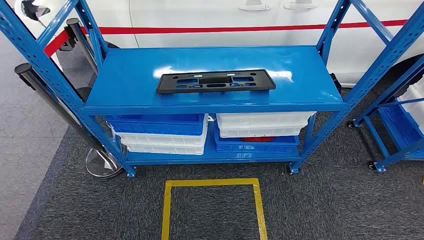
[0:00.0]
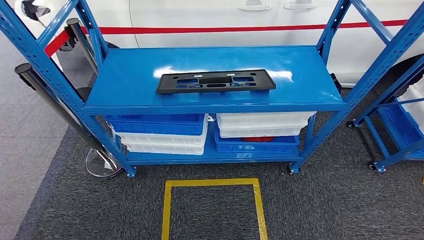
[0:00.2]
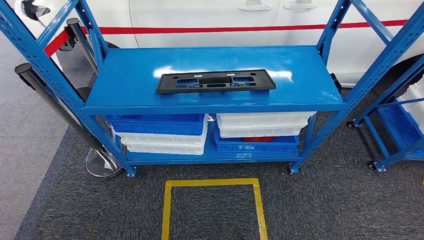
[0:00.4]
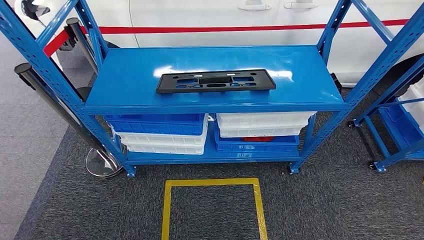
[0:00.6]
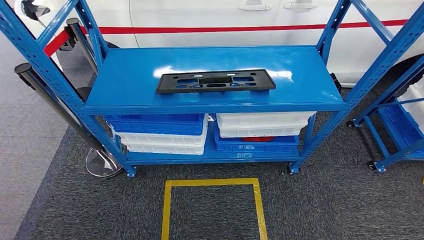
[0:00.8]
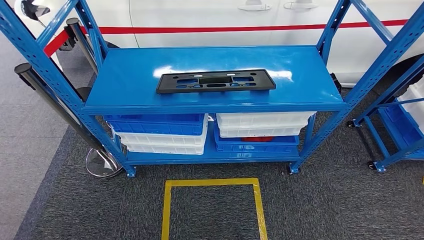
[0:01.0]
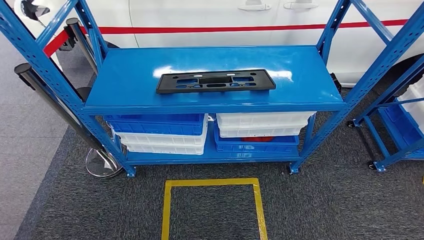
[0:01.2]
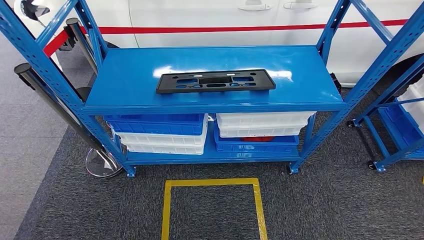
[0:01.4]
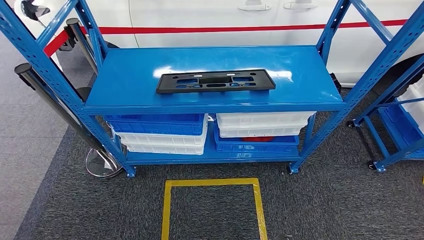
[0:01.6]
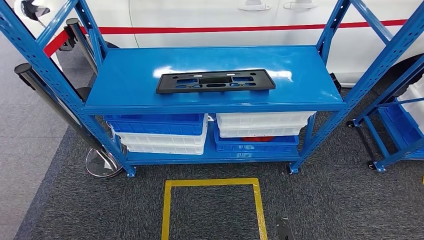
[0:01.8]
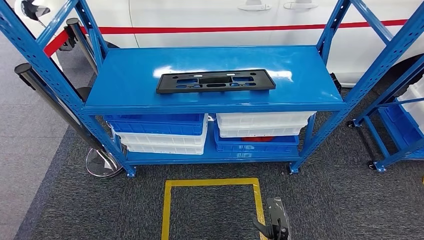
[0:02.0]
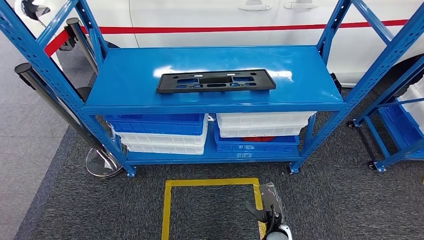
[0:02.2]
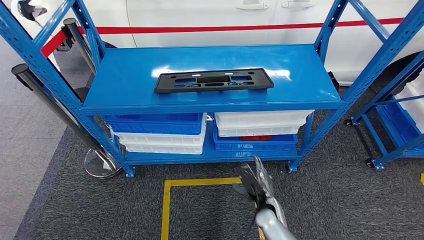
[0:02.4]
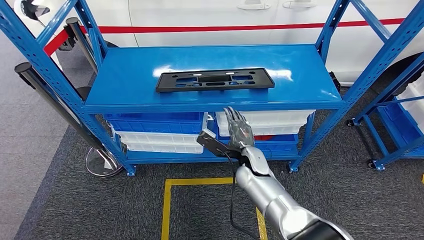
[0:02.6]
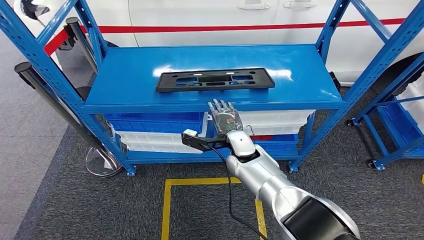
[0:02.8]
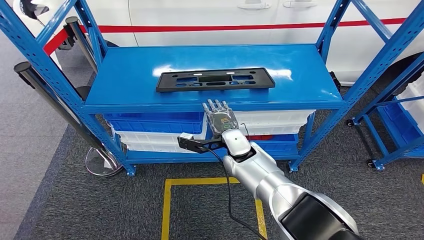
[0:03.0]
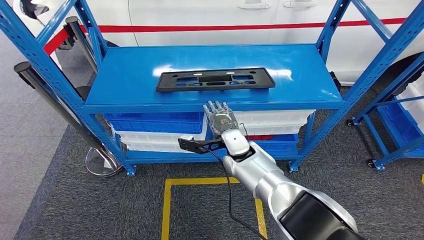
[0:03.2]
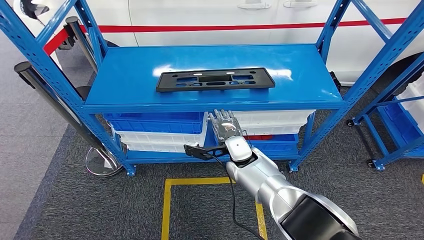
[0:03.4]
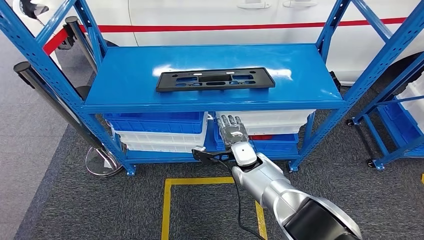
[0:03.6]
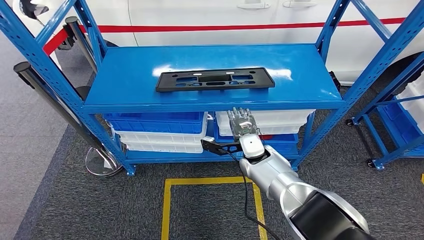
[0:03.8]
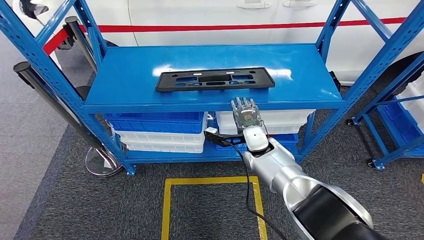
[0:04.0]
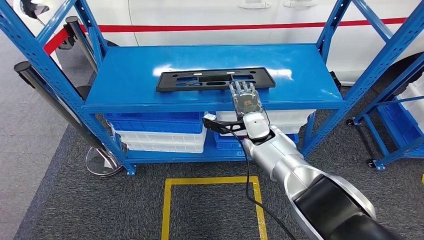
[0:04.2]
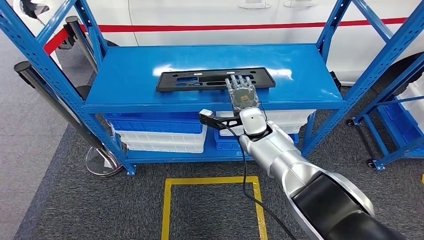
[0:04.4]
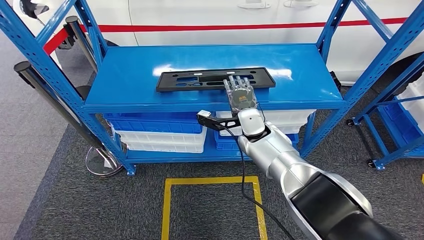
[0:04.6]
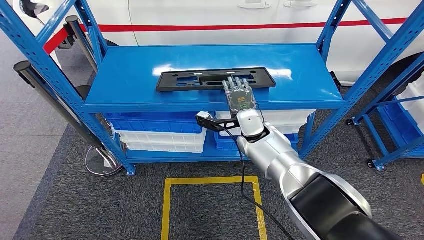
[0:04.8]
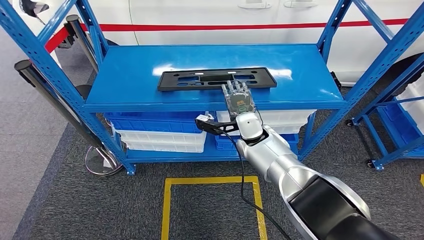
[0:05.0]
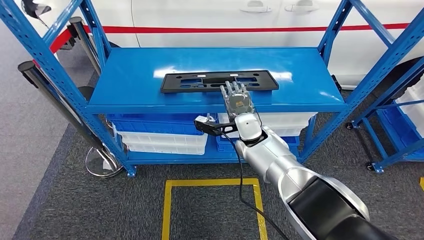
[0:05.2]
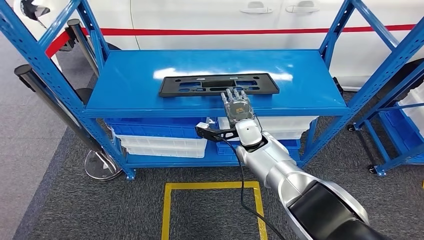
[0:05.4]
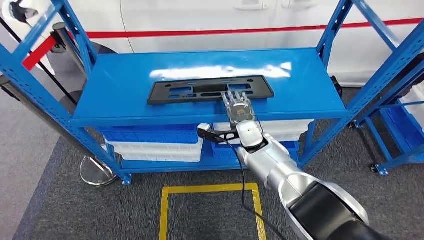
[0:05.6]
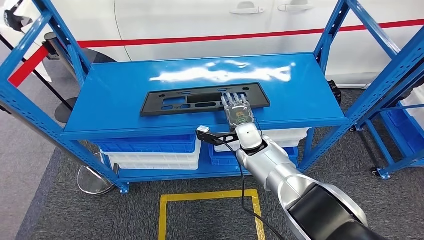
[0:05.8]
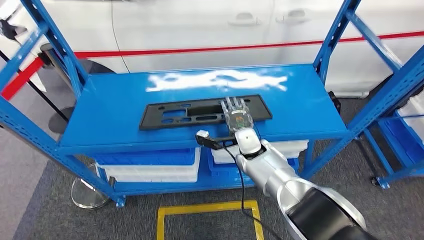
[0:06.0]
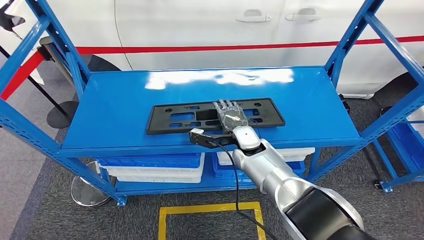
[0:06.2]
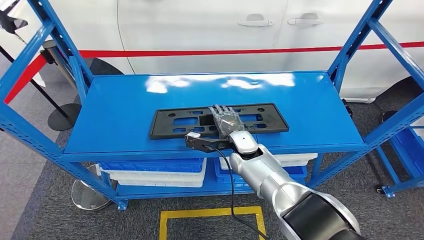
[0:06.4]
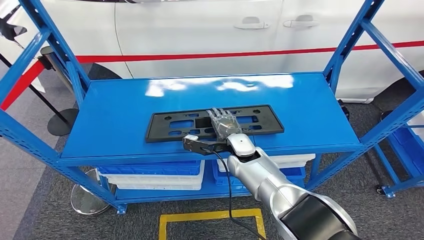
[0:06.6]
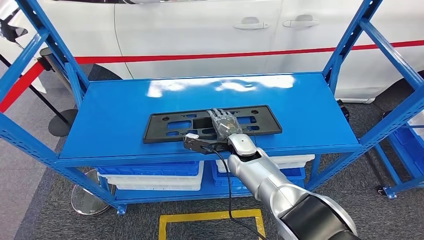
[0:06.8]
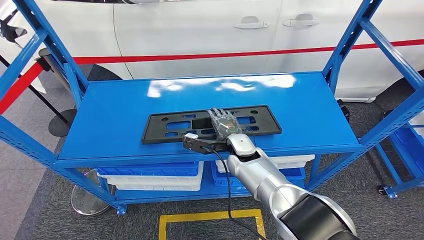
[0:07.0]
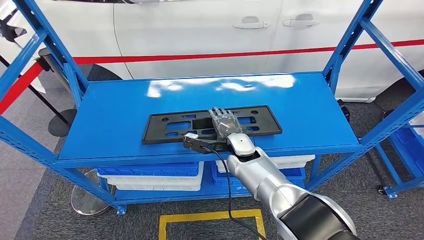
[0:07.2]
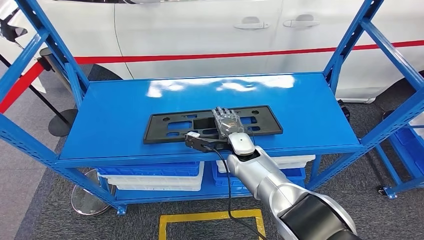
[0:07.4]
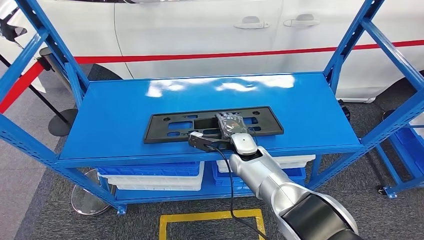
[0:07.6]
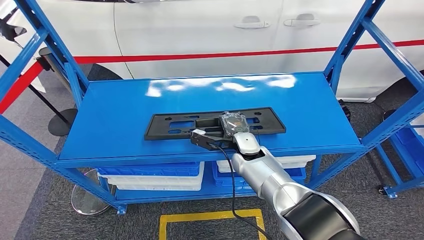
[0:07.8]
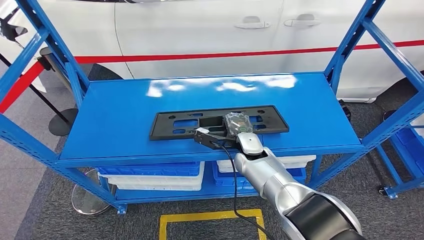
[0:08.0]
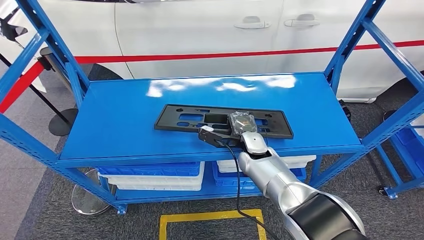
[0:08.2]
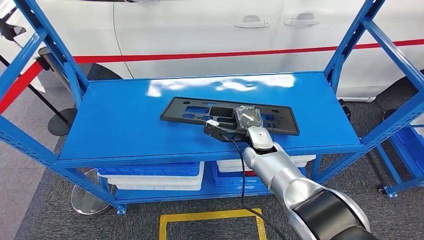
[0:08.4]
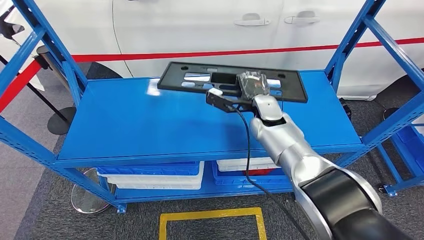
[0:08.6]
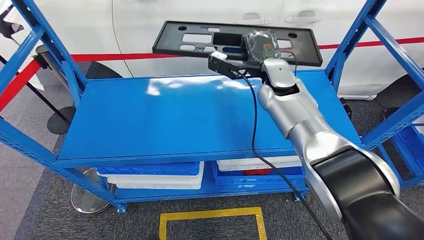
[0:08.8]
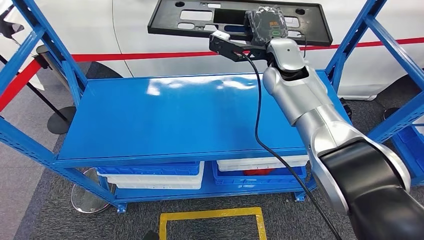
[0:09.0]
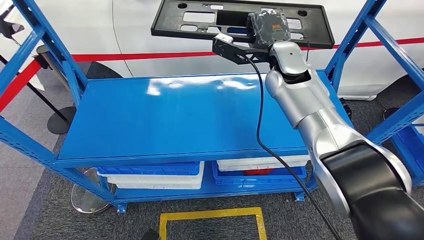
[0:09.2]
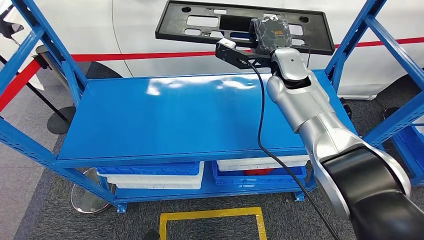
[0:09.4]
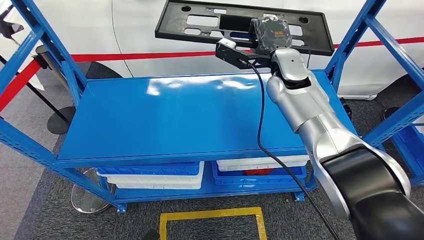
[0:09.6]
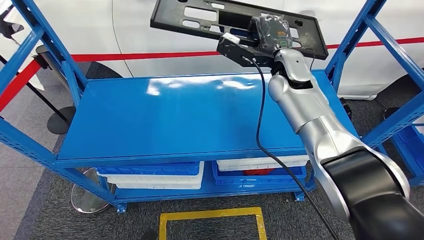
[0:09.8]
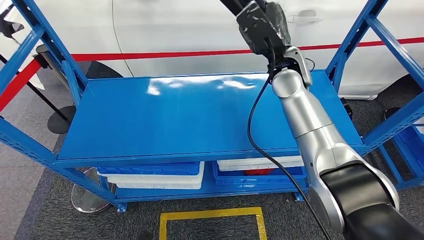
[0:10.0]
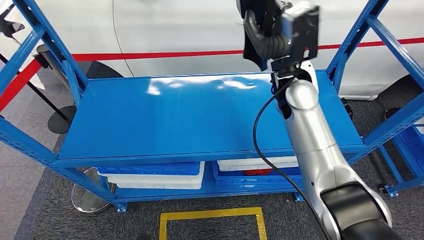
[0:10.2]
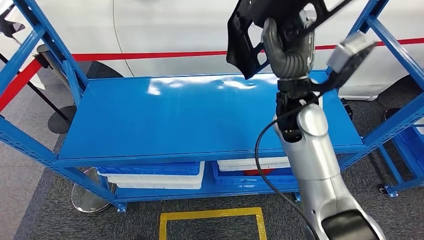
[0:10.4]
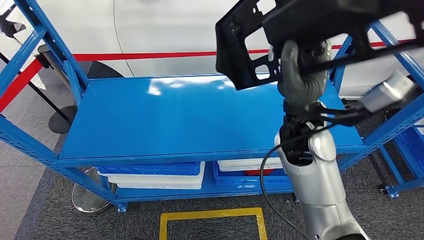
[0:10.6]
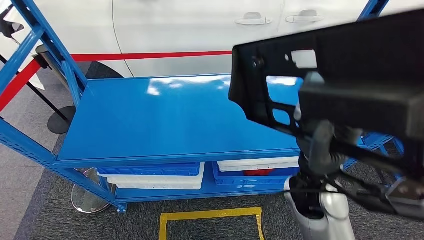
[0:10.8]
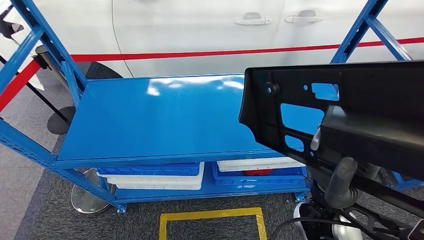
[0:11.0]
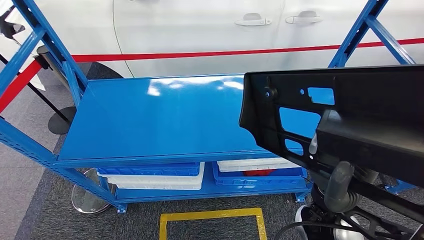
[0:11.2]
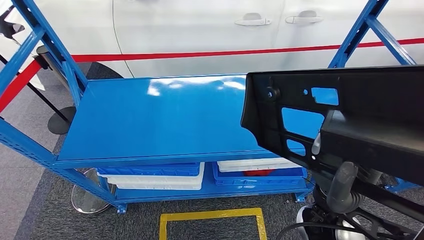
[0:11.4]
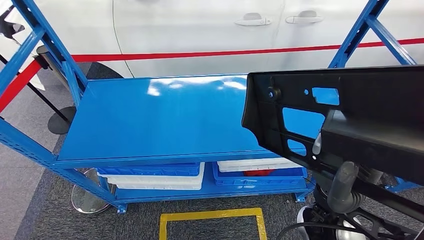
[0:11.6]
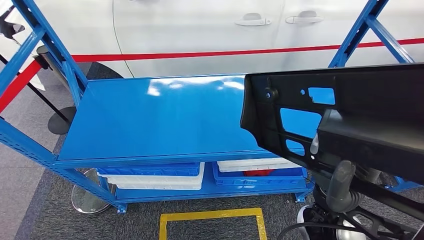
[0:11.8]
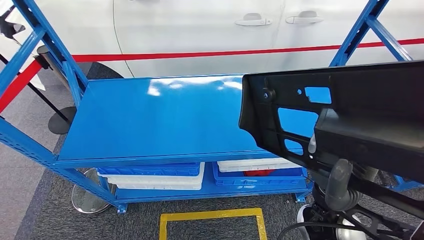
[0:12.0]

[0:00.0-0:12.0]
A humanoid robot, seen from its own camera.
Step, 0:00.0 to 0:10.2: Pick up the large material from the shelf.
0:01.6 to 0:03.0: The right hand heads forward, upward and to the left, covering some 50 cm.
0:03.0 to 0:04.4: The right hand heads to the right, covering about 5 cm.

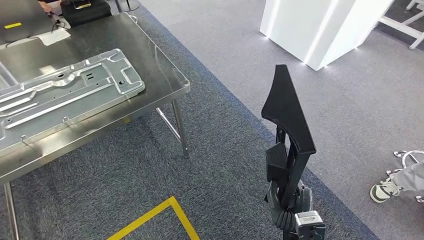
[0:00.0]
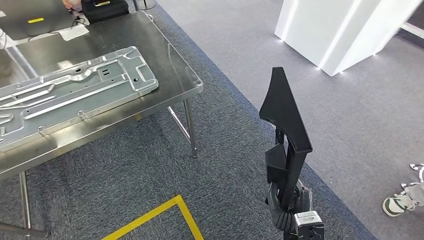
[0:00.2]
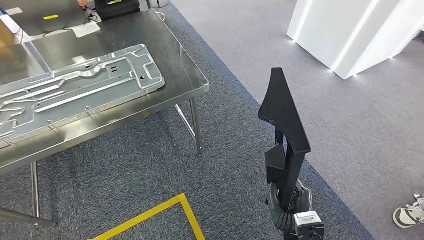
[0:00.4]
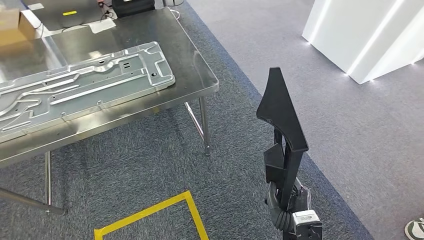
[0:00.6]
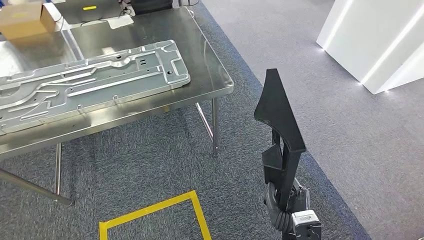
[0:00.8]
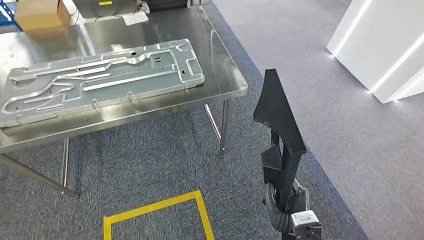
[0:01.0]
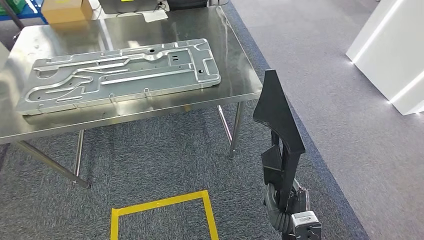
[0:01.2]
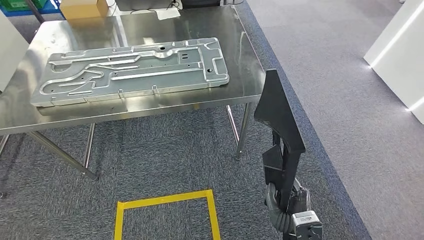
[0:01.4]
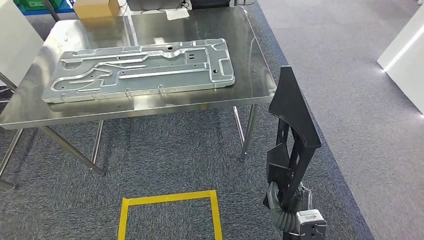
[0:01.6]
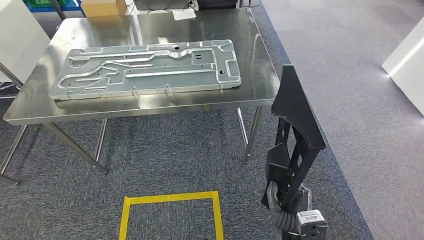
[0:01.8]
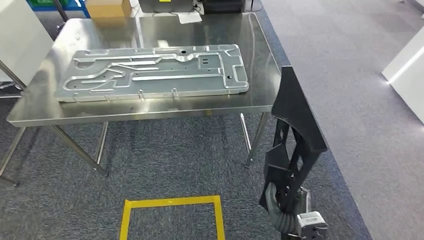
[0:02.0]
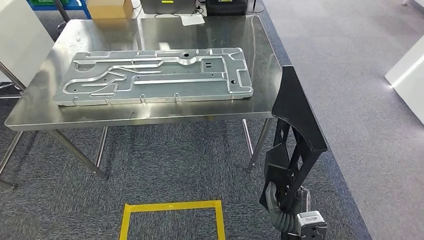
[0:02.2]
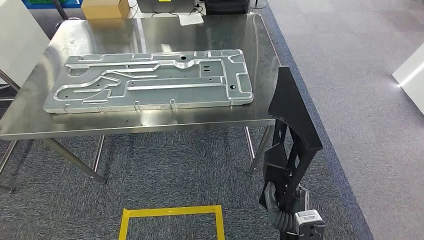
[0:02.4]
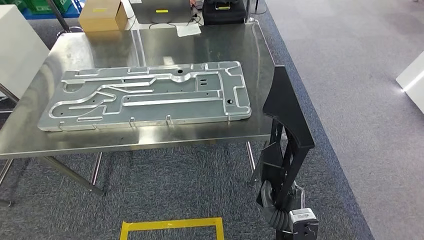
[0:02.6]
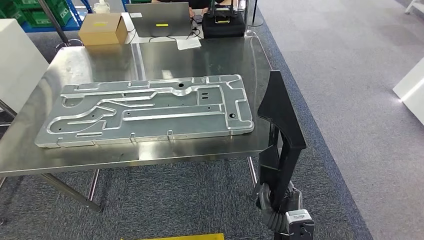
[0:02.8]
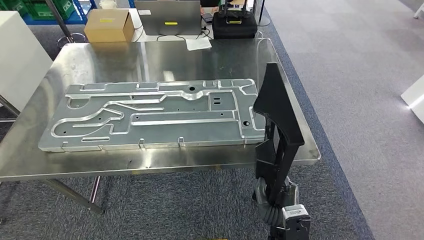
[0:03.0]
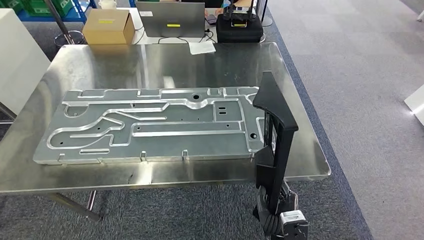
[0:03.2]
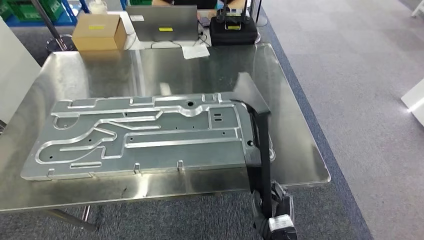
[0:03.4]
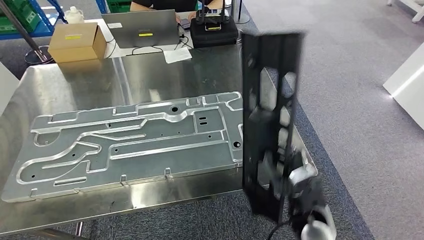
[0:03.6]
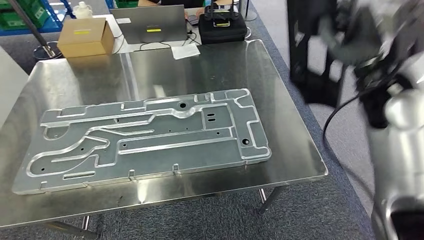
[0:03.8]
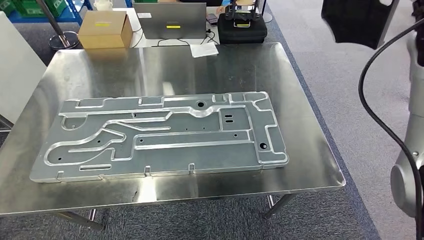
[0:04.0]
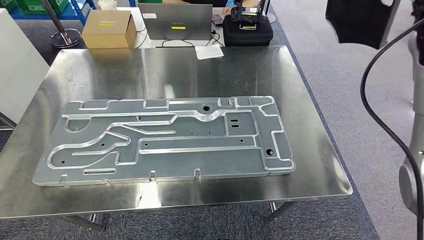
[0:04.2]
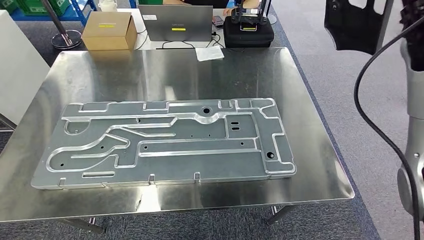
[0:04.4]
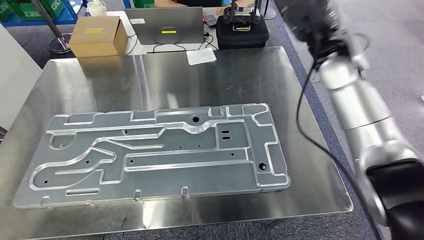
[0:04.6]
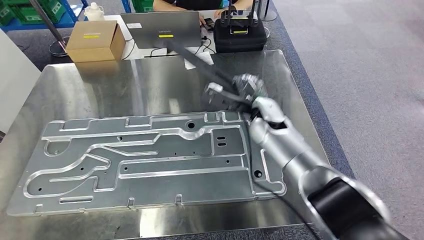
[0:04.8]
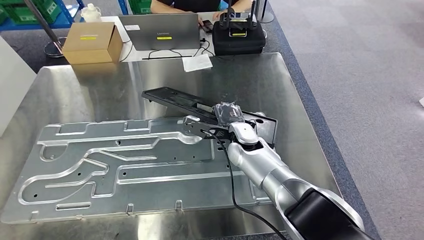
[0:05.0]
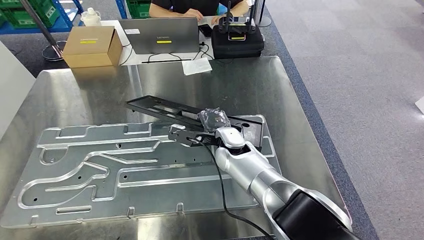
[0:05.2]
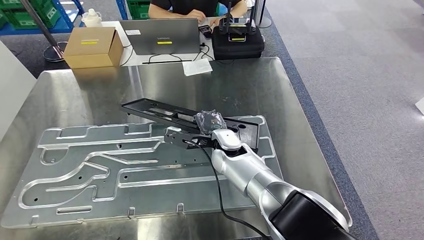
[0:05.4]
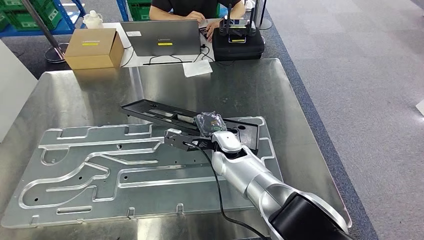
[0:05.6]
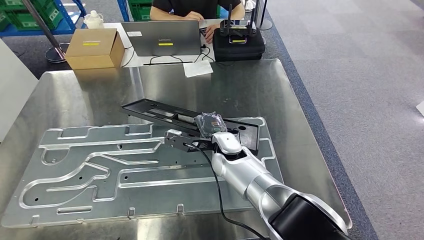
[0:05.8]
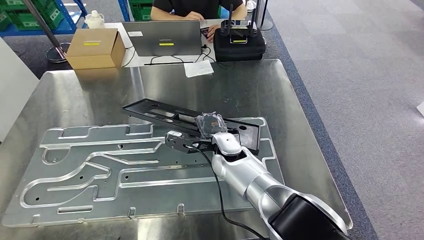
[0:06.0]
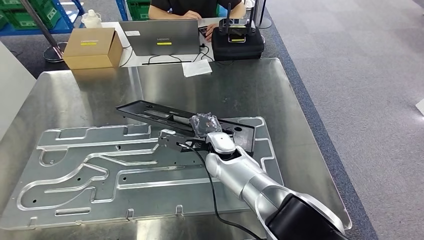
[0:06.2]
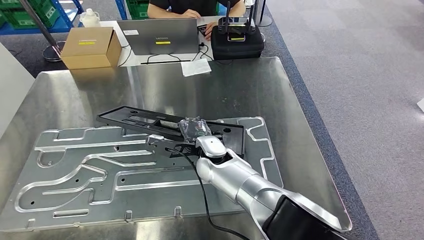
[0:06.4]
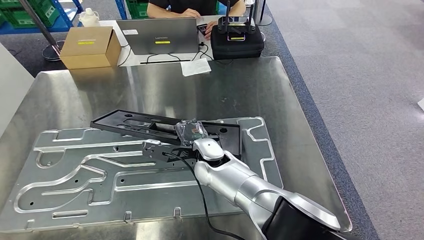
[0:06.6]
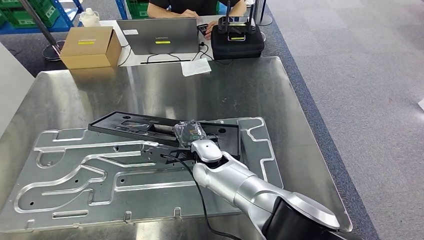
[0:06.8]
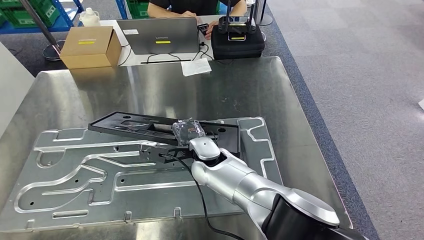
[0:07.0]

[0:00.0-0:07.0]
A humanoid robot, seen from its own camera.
Step, 0:00.0 to 0:04.8: Move the large material to the front of the workbench.
